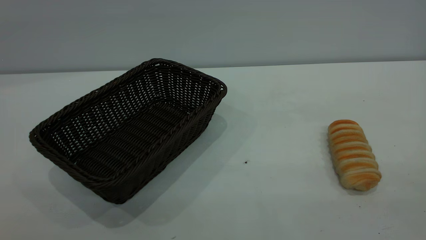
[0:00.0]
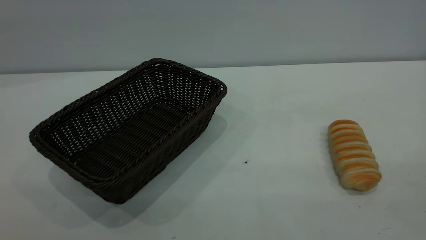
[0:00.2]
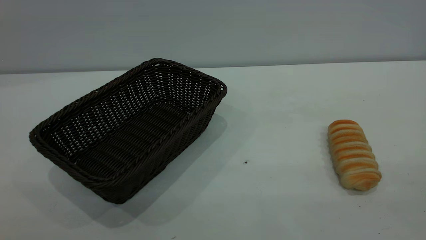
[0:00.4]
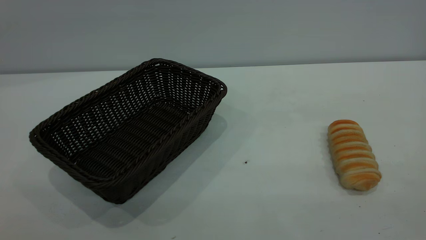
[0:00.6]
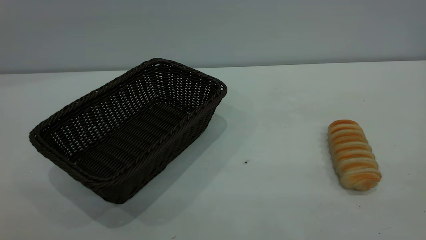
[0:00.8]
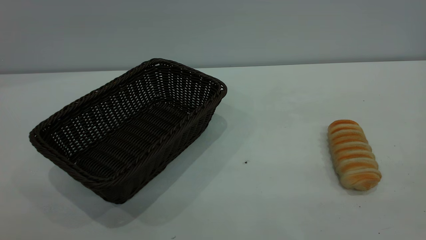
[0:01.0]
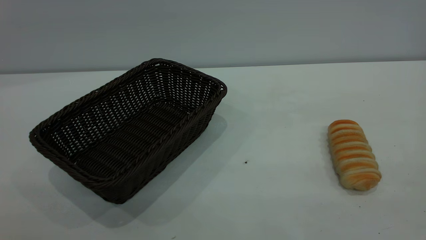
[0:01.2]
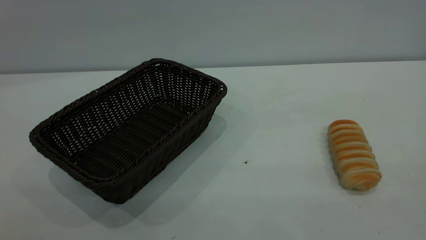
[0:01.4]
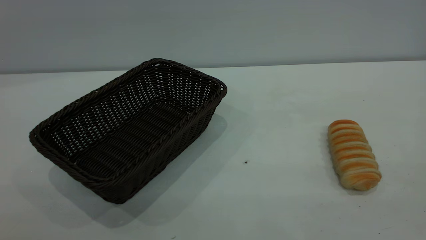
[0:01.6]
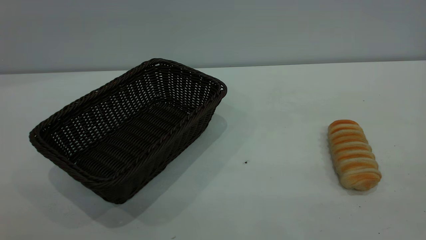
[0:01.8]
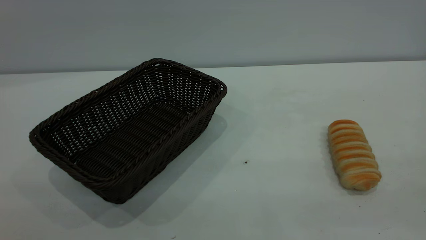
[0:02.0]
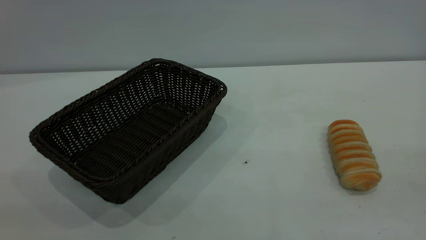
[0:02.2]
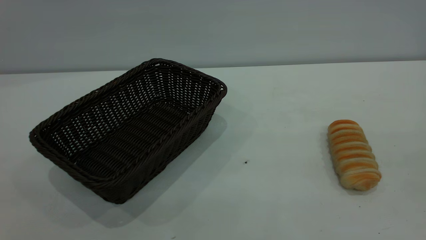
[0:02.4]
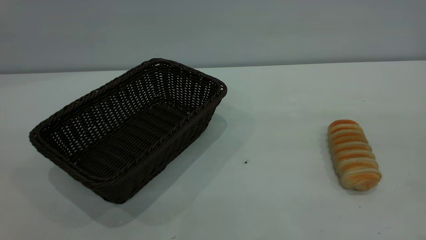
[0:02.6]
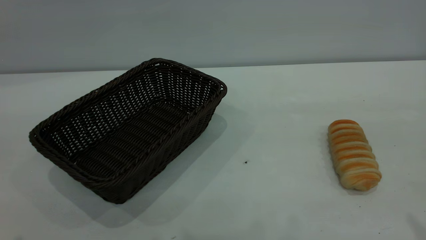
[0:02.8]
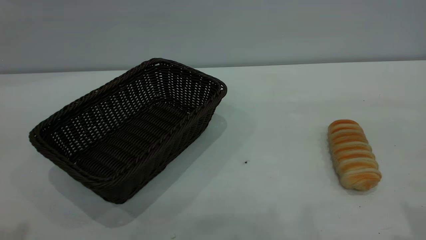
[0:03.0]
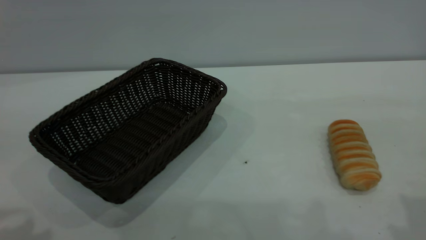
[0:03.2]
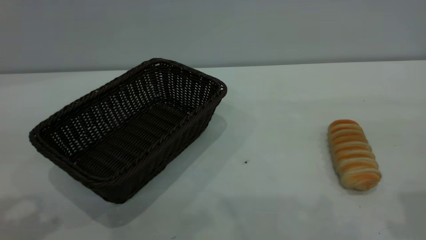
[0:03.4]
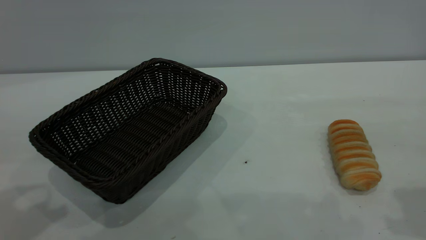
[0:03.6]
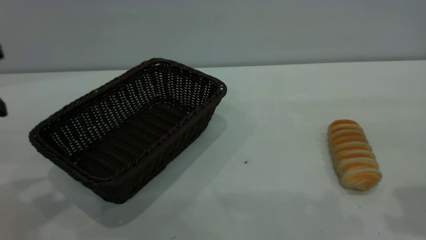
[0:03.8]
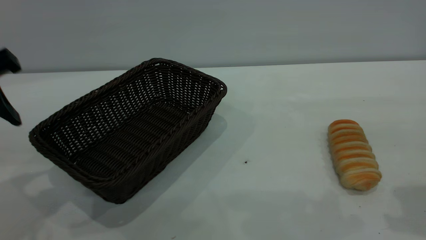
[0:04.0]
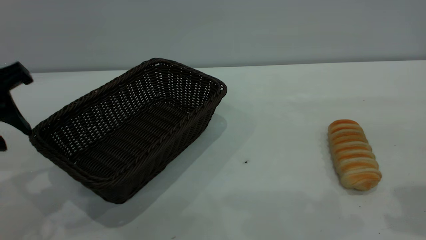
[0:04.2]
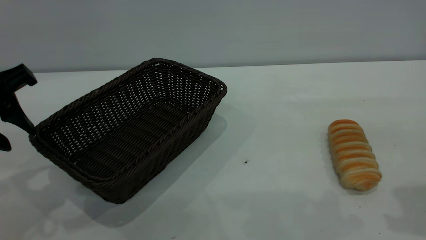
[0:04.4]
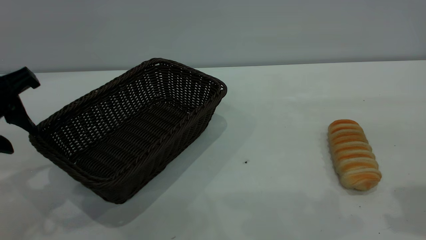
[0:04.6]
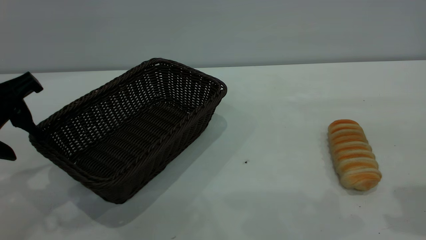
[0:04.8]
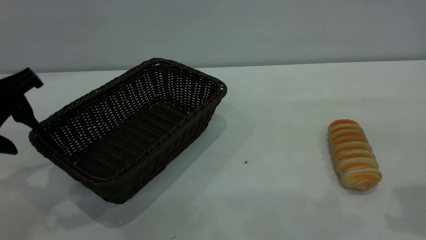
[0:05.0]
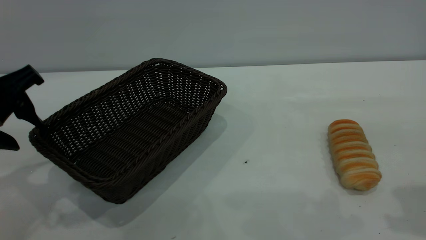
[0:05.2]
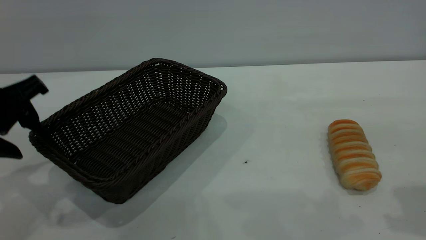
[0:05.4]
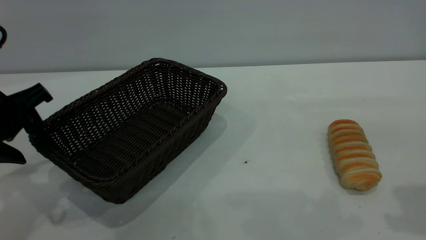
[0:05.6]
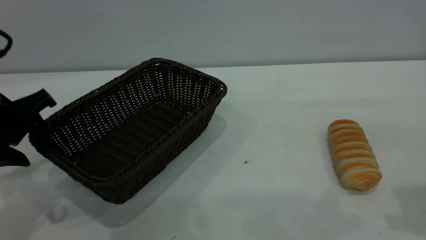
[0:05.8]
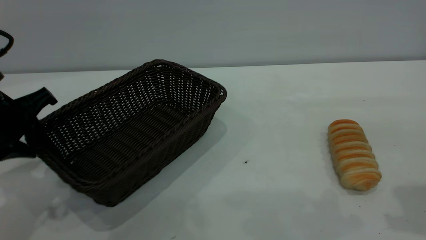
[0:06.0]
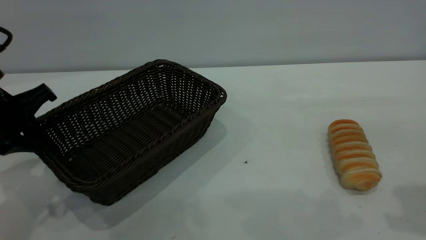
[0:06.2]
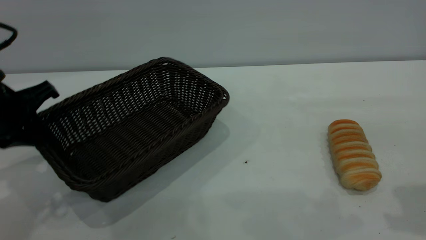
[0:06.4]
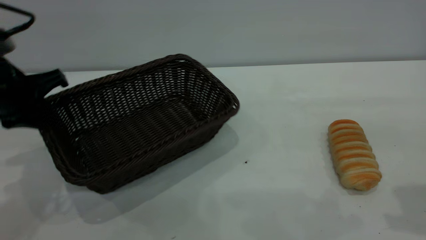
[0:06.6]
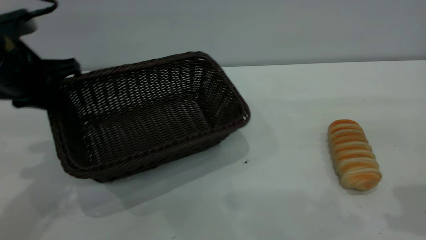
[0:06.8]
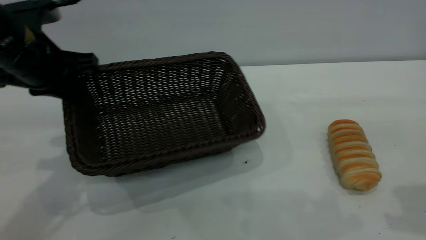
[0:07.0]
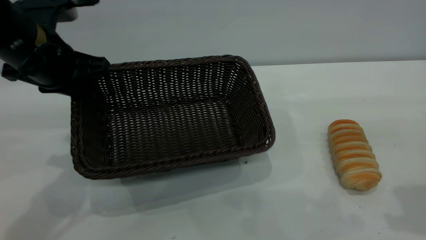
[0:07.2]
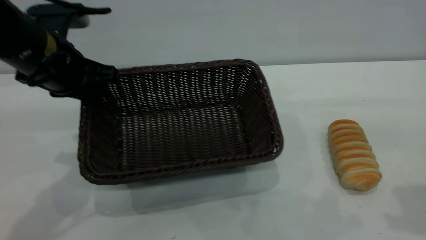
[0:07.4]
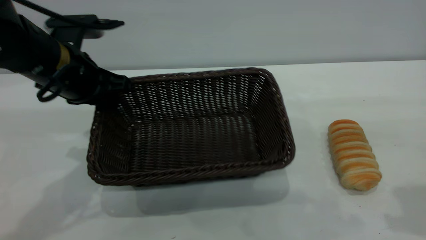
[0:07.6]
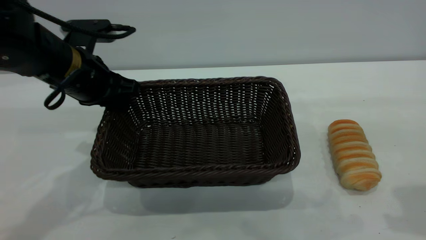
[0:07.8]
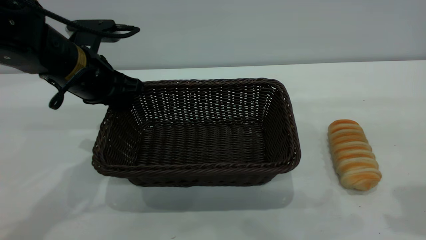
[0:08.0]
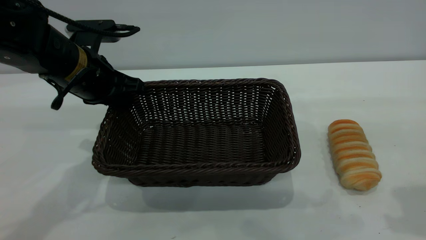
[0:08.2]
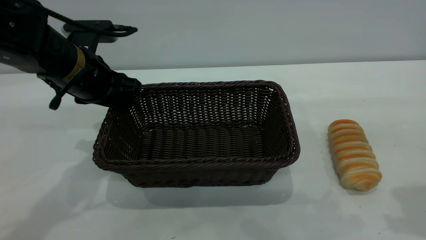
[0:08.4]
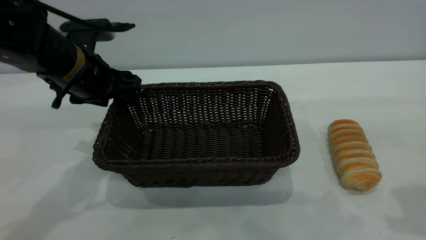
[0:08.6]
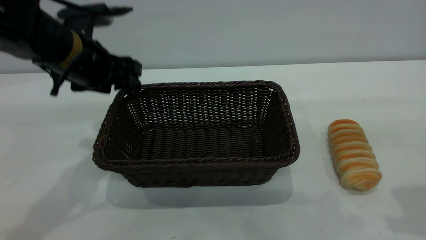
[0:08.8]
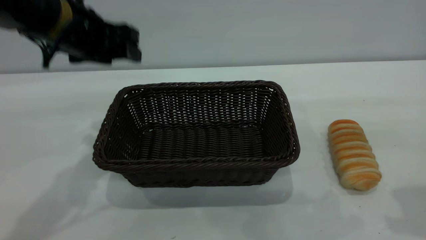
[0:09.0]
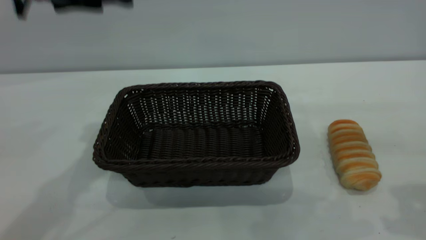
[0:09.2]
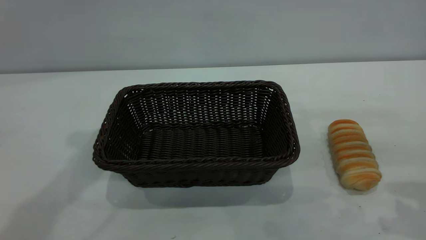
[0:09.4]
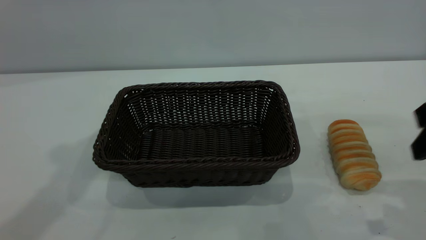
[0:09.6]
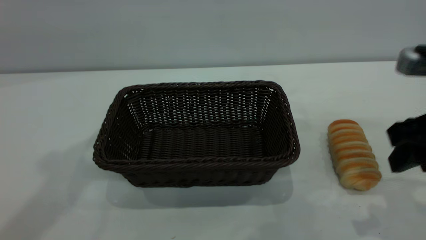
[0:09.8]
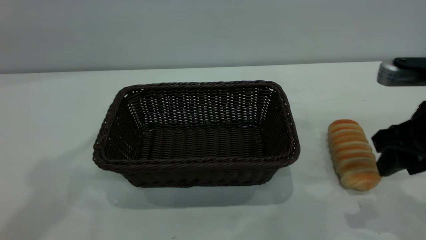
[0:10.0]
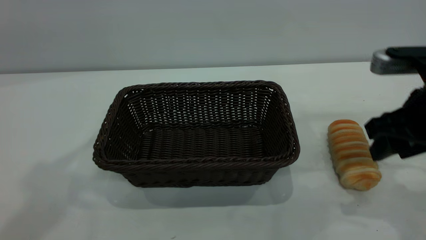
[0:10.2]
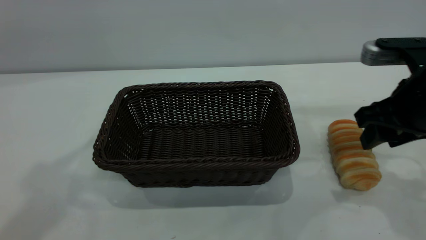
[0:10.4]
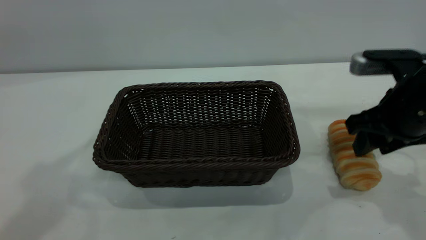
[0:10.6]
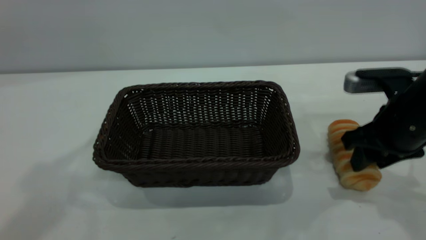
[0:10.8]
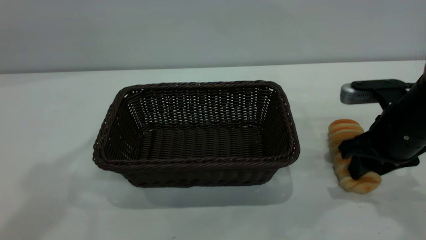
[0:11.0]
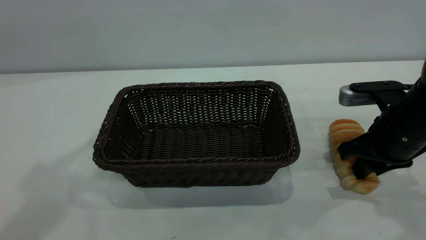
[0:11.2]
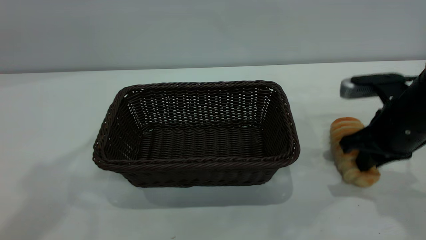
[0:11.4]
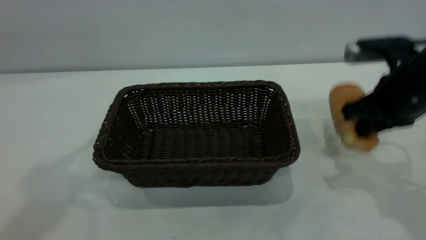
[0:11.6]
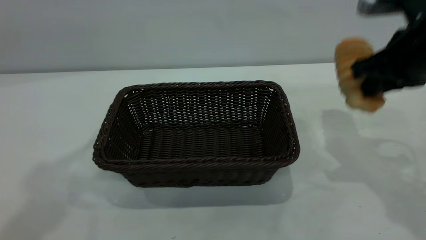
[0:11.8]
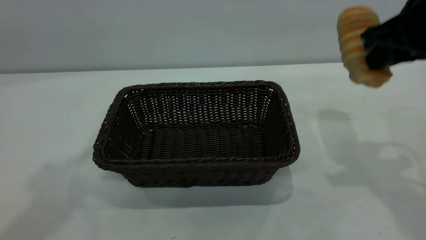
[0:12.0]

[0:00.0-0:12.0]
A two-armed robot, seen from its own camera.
Task of the whole recording: One hand grasps the black basket and places it in the middle of the table, while the other hand picks up the long bread and puts it into the black basket.
Step, 0:00.0 to 0:08.8: Move the basket to the center of view.
0:00.0 to 0:01.6: The two grippers keep their place.
0:03.0 to 0:04.4: The left gripper moves downward and forward, some 15 cm.
0:04.4 to 0:06.0: The left gripper is displaced downward by roughly 5 cm, and closes up.
0:06.0 to 0:07.6: The left gripper heads to the right and forward, covering about 10 cm.
0:07.6 to 0:09.0: The left gripper moves upward, some 5 cm, and opens its fingers.
0:09.0 to 0:10.4: The left gripper goes some 25 cm upward and backward. The right gripper moves downward and forward, about 15 cm.
0:10.4 to 0:12.0: The right gripper moves upward, approximately 10 cm, and closes.

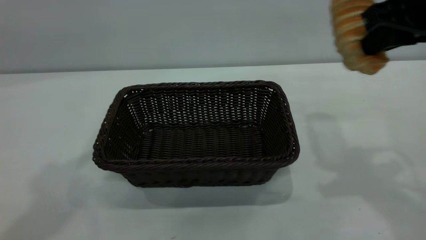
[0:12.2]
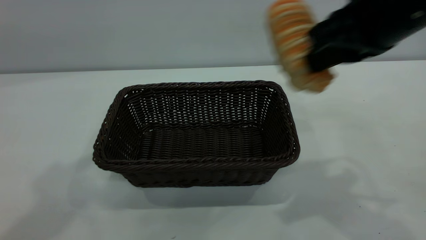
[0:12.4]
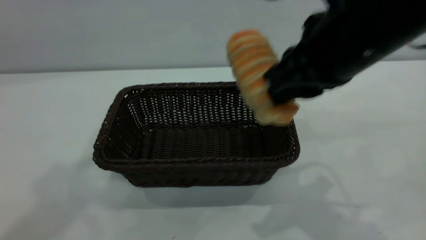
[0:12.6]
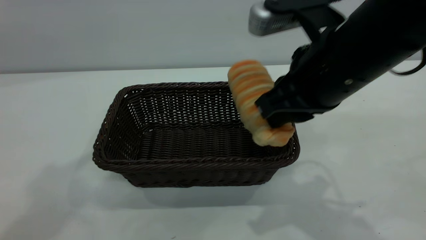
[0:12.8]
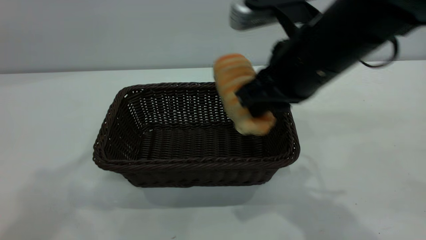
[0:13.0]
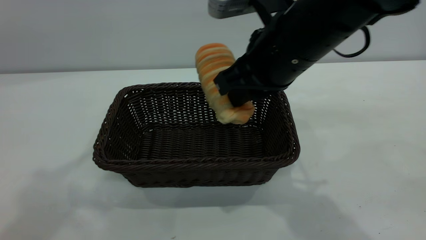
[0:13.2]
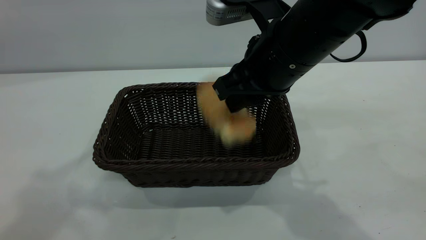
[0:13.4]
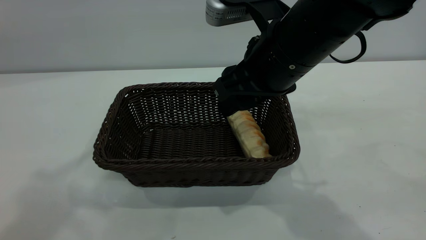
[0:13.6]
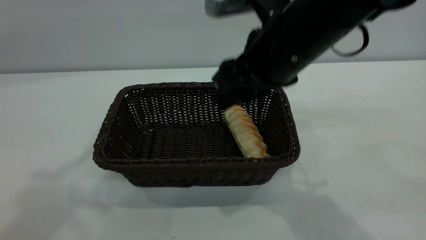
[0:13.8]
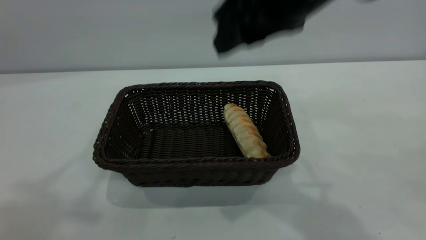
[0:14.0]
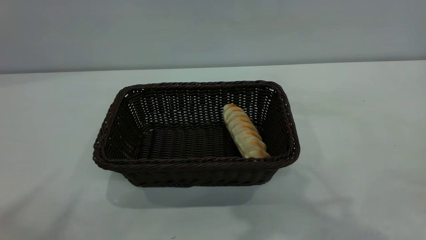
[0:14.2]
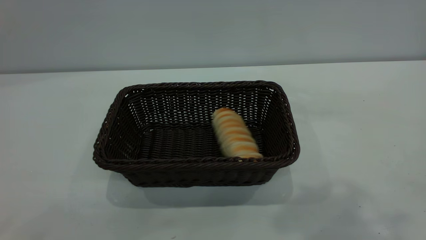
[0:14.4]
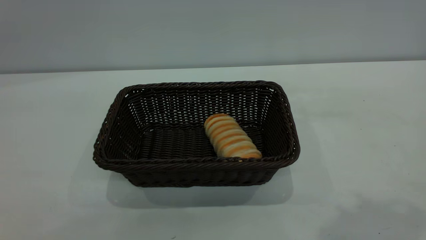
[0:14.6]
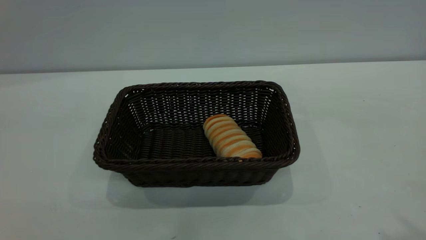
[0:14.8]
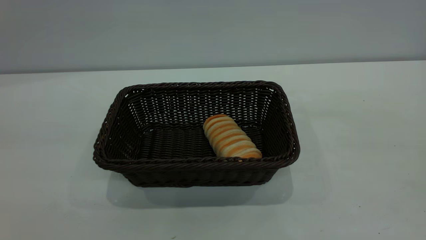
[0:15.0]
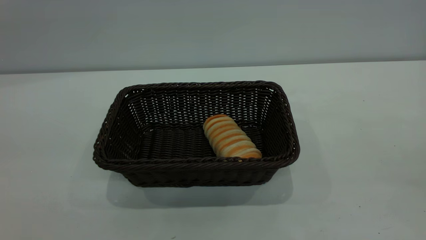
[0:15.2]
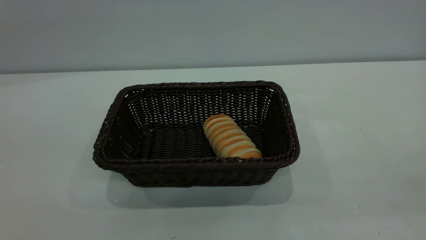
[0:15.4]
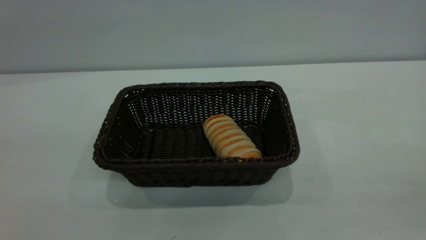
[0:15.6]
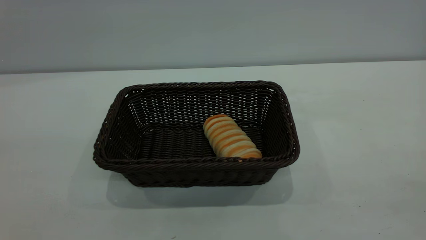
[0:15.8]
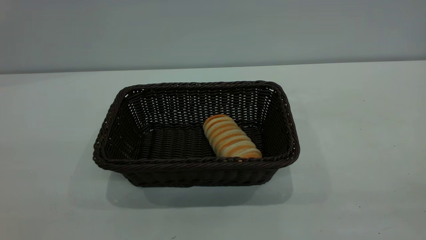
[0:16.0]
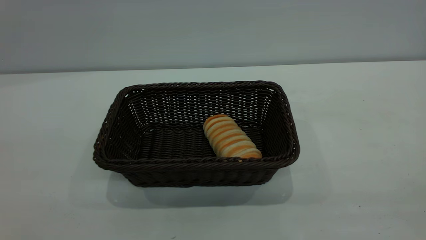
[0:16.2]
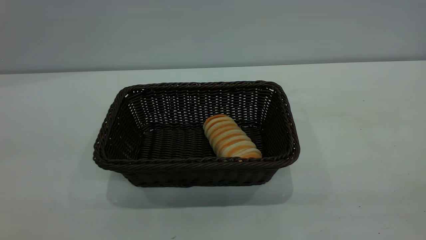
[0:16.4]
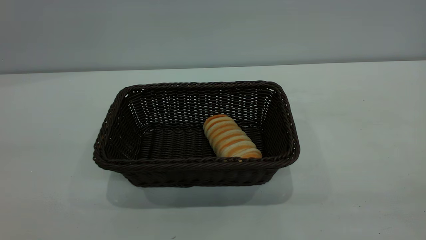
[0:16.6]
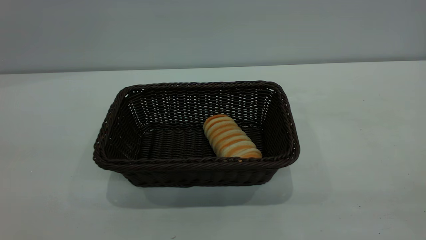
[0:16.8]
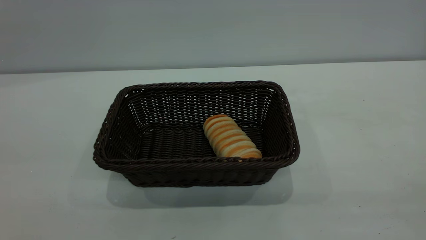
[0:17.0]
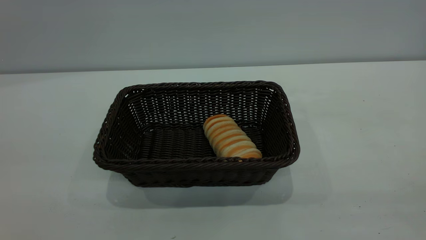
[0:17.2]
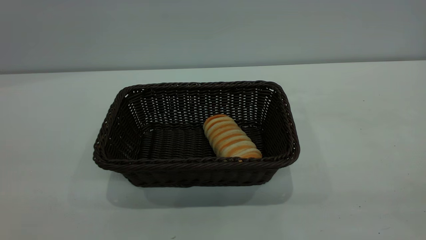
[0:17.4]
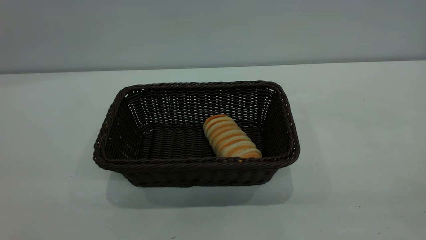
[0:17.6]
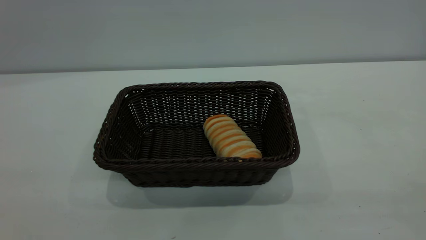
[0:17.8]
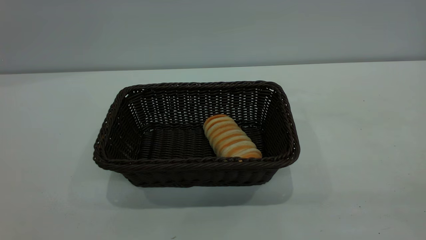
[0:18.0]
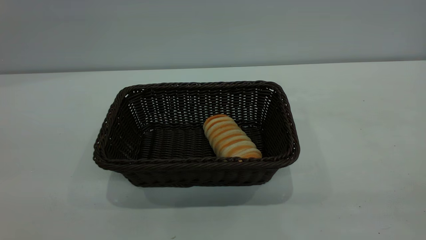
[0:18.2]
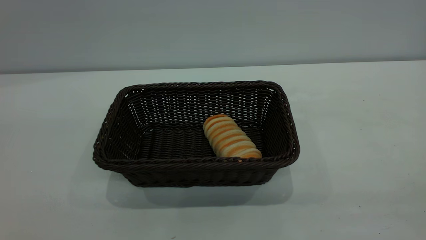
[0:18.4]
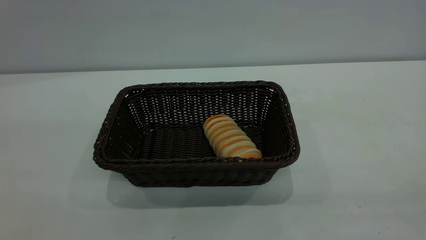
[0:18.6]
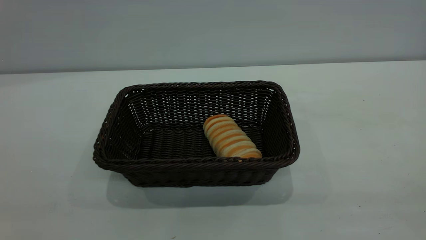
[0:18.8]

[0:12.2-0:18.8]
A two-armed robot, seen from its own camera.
Task of the whole recording: One hand grasps the black basket and places it in the middle of the table, while the other hand picks up the long bread and puts it into the black basket.
Step, 0:12.2 to 0:14.0: place the bread into the basket.
0:12.2 to 0:13.8: The right gripper goes roughly 15 cm to the left, and opens its fingers.
0:13.8 to 0:15.4: The right gripper heads backward, to the right and upward, covering about 35 cm. The left gripper is displaced backward by roughly 20 cm.
